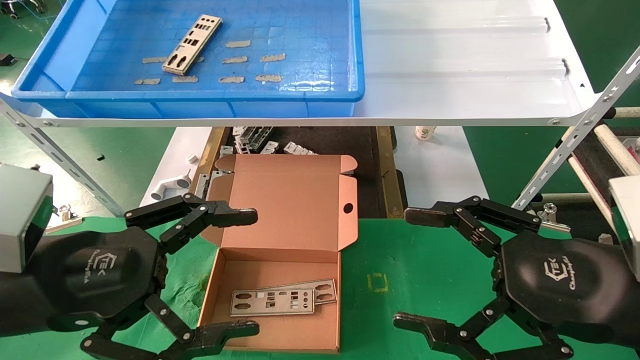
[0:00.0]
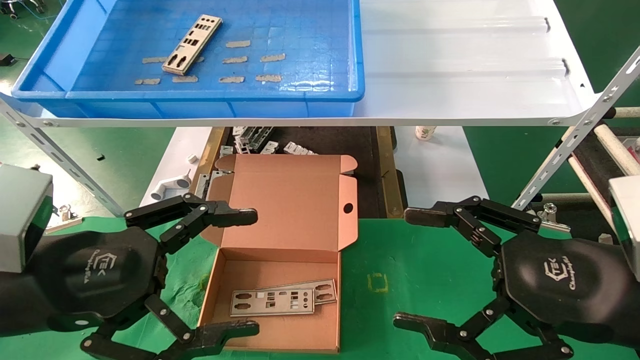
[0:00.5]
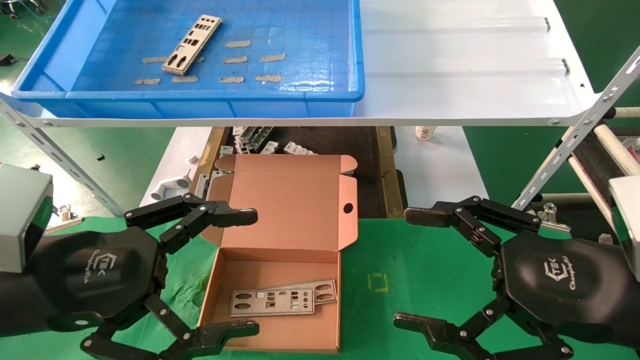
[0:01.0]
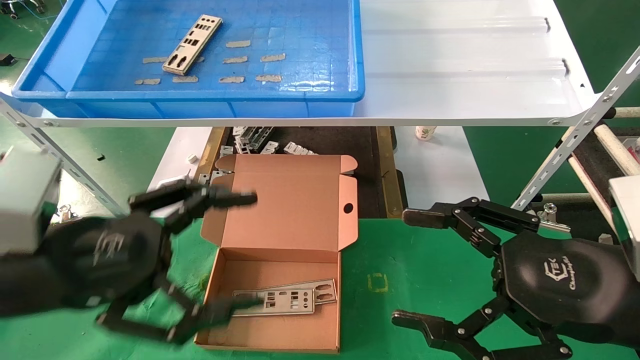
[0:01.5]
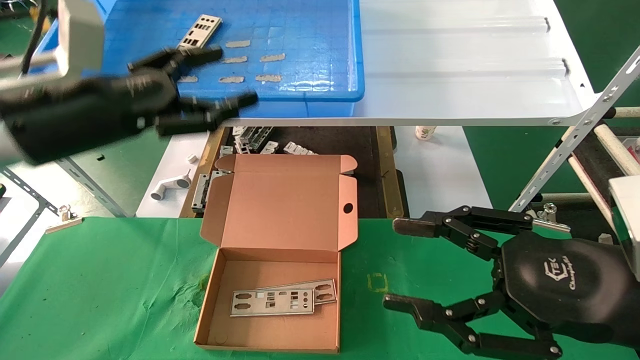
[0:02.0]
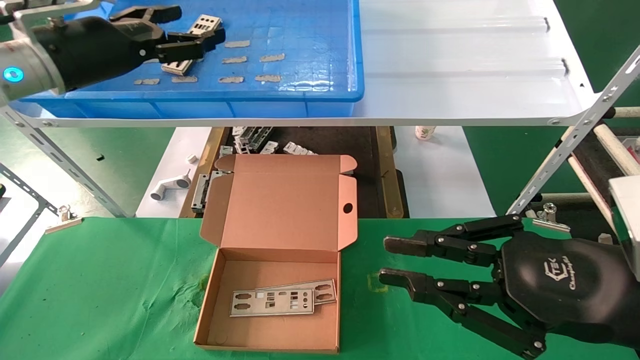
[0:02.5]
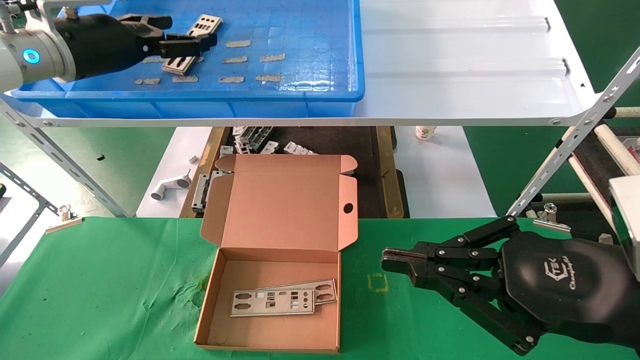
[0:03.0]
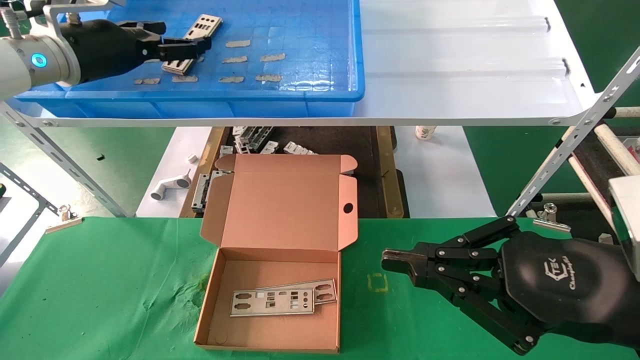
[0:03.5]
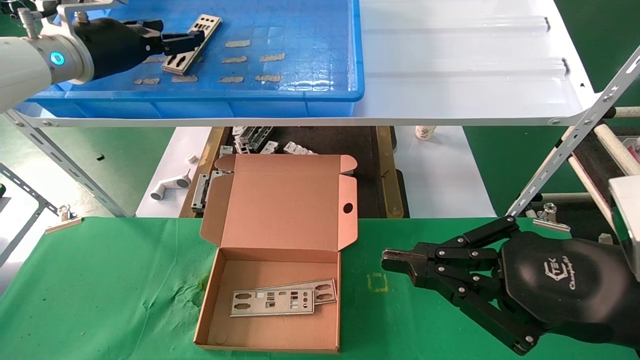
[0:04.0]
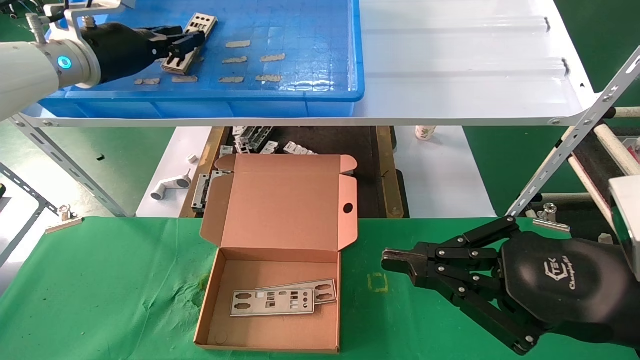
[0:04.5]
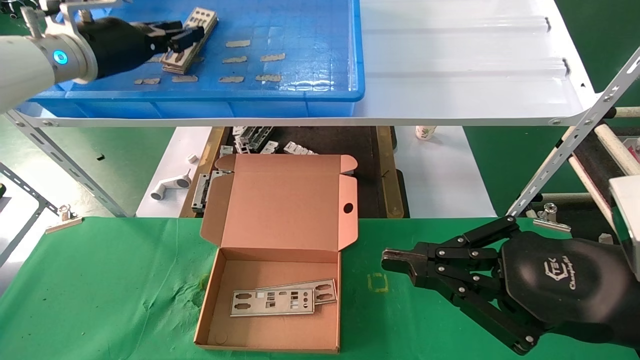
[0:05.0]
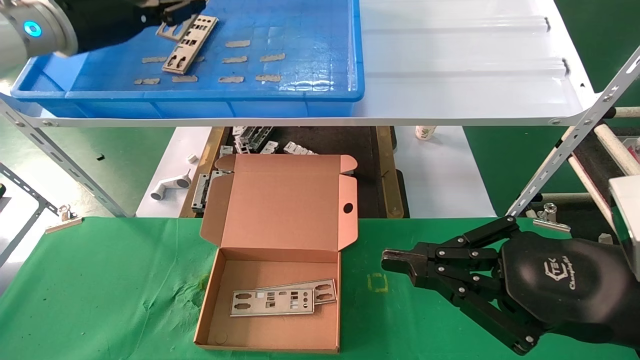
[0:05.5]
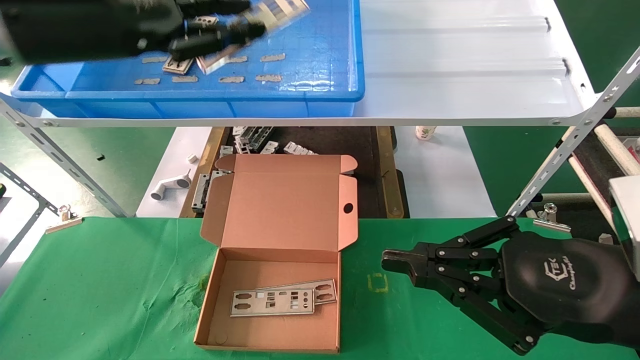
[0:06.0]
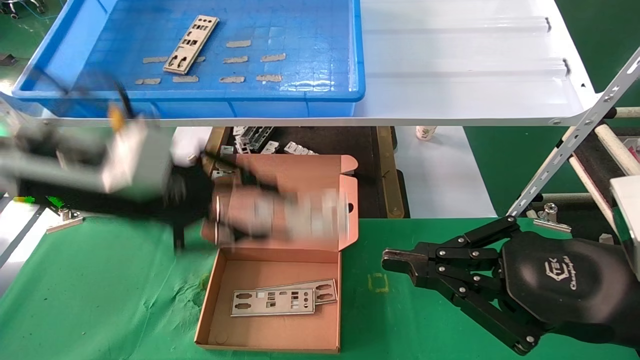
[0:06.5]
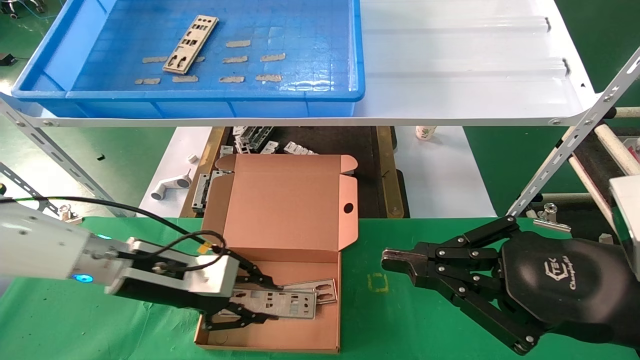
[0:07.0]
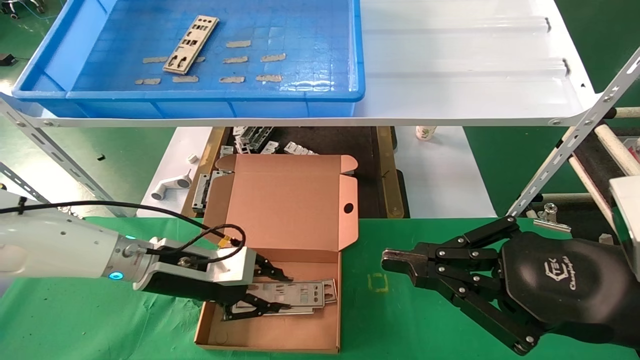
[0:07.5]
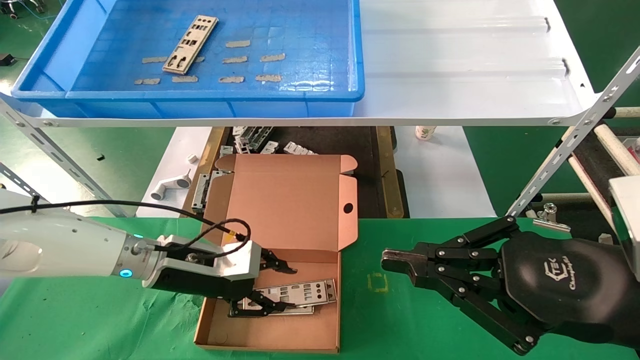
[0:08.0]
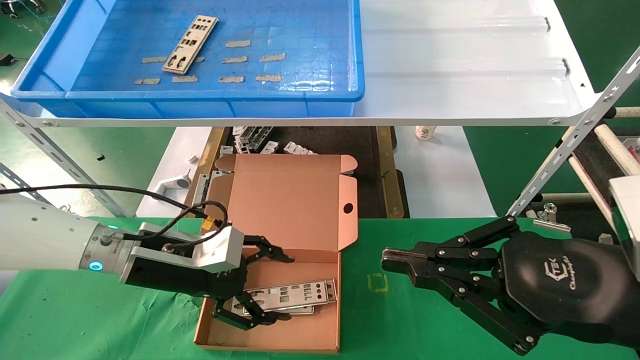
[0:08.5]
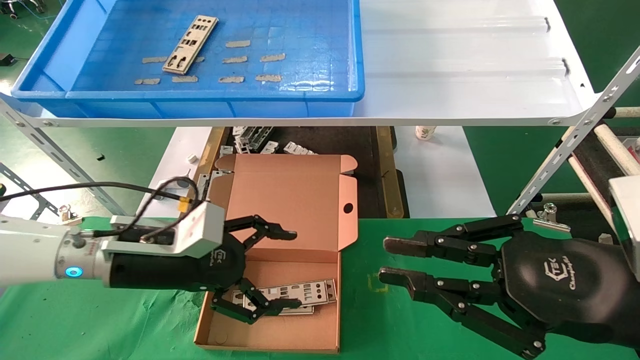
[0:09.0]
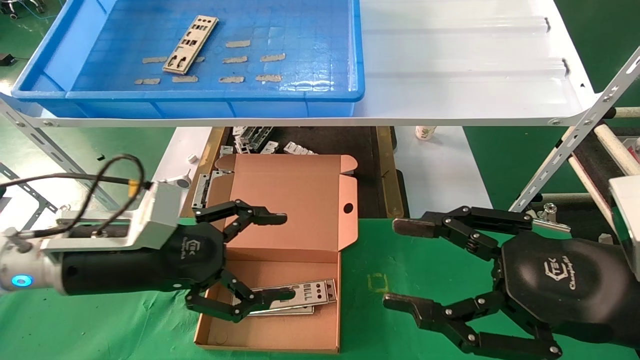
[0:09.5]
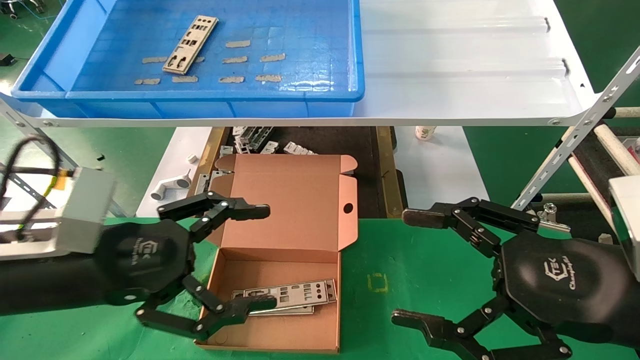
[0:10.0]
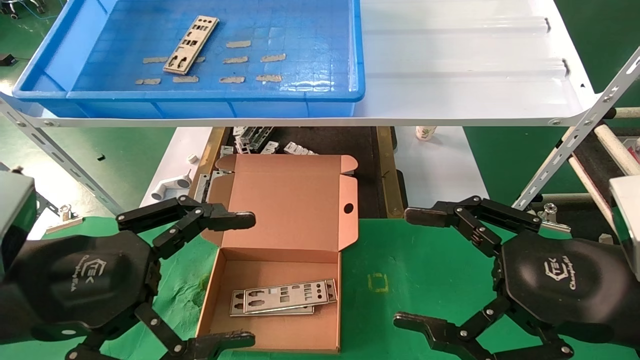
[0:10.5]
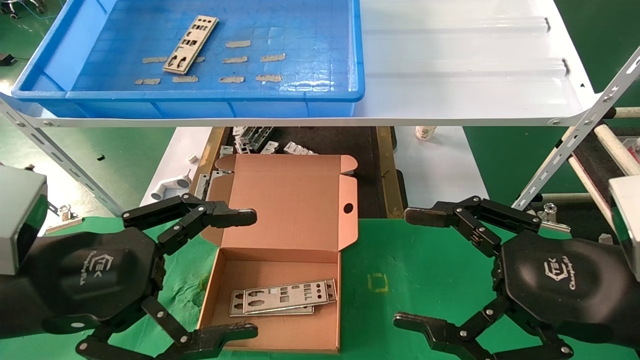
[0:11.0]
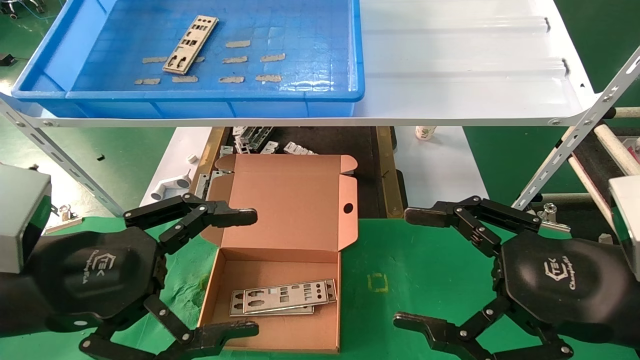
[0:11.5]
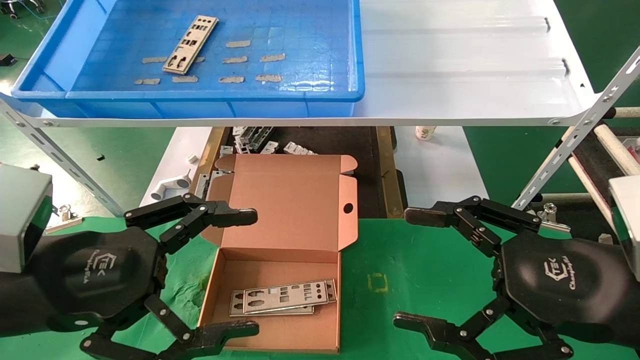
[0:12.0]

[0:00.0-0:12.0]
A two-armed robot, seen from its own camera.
Task of the whole recording: pick up the parts on the tray and put them in the cardboard box.
Step, 0:02.0 to 0:05.0: Pick up the IO bracket from the container box.
Step, 0:05.5 to 0:08.0: Place the IO bracket into the ingredient slot.
0:00.0 to 0:02.0: The left gripper shifts some 15 cm forward and upward.
0:02.0 to 0:04.0: The left gripper shifts some 15 cm forward and upward; the right gripper closes up.
0:04.0 to 0:06.0: The left gripper shifts about 10 cm backward, and closes up.
0:06.0 to 0:08.0: The left gripper goes about 30 cm downward.
0:08.0 to 0:10.0: The right gripper opens up. Meanwhile the left gripper goes about 15 cm backward and upward, and opens.
0:10.0 to 0:12.0: There are only small adjustments of the grippers.

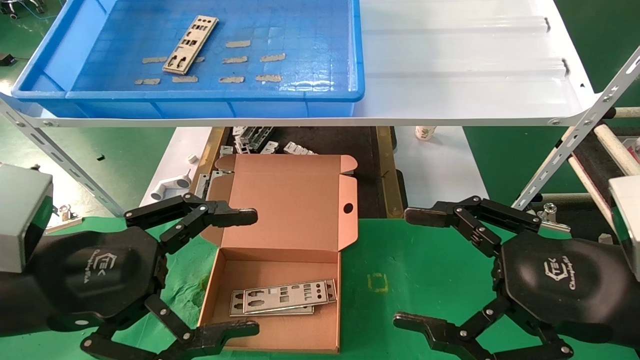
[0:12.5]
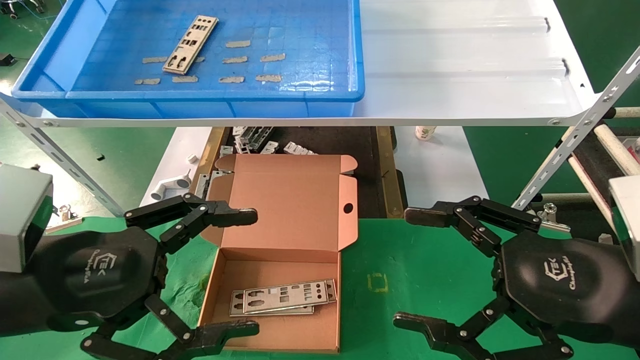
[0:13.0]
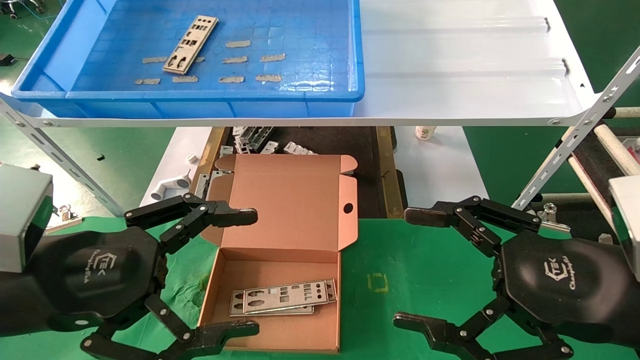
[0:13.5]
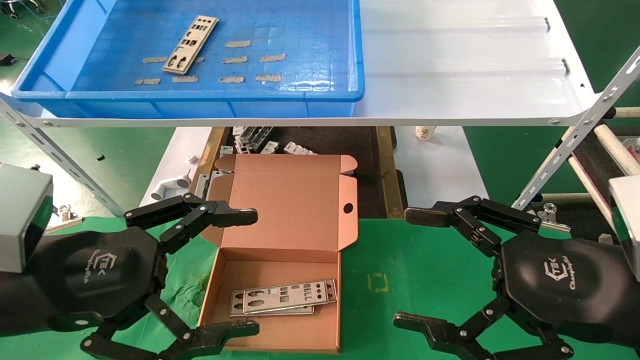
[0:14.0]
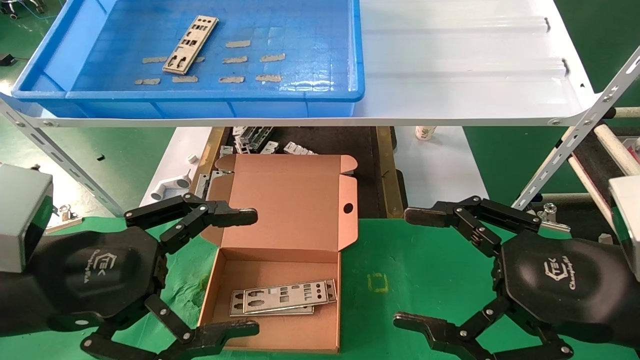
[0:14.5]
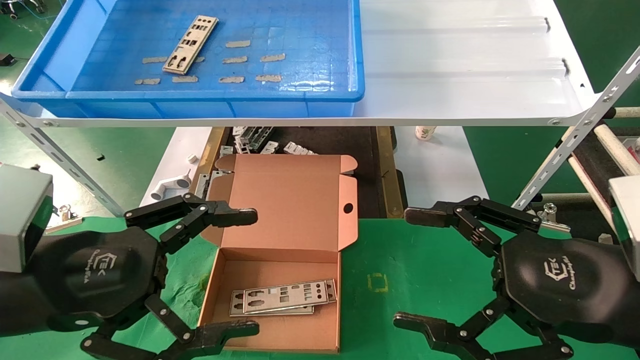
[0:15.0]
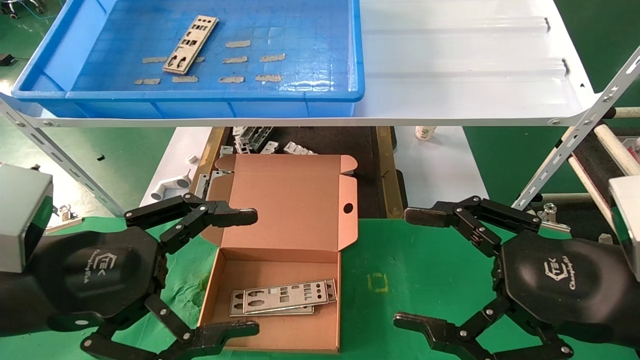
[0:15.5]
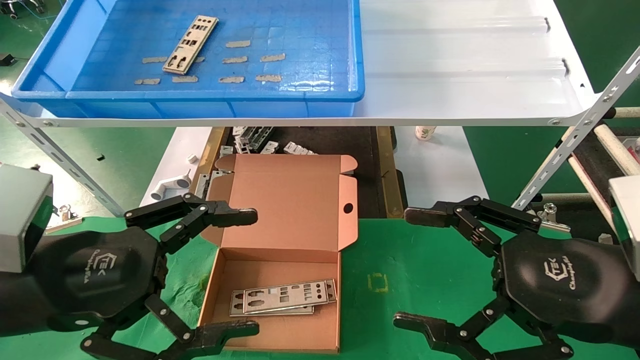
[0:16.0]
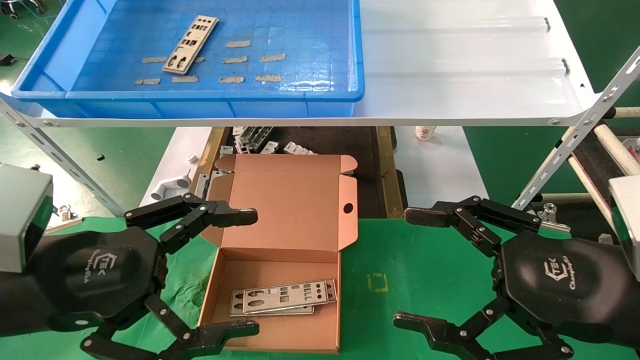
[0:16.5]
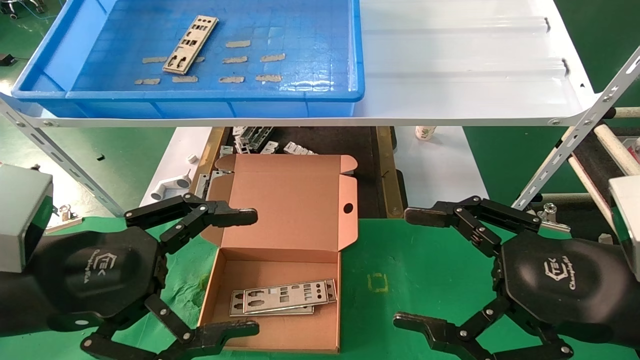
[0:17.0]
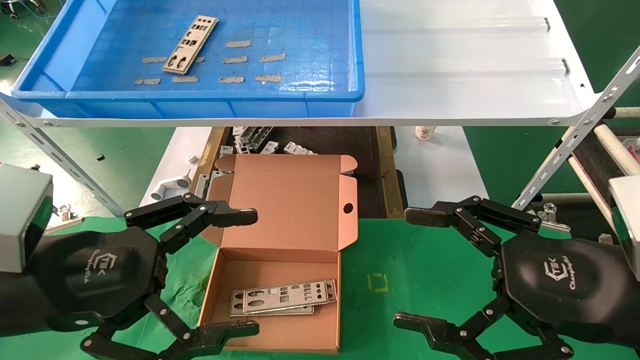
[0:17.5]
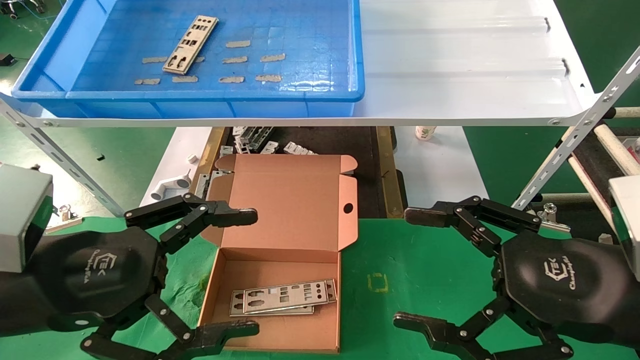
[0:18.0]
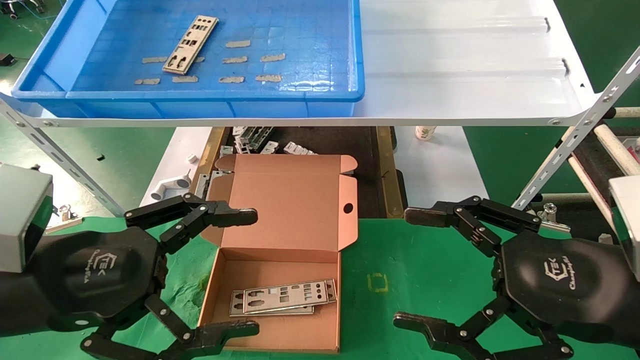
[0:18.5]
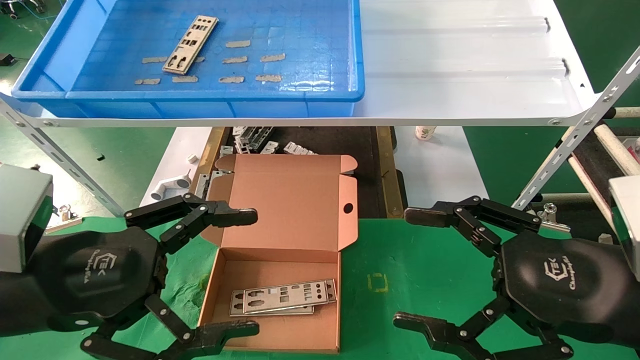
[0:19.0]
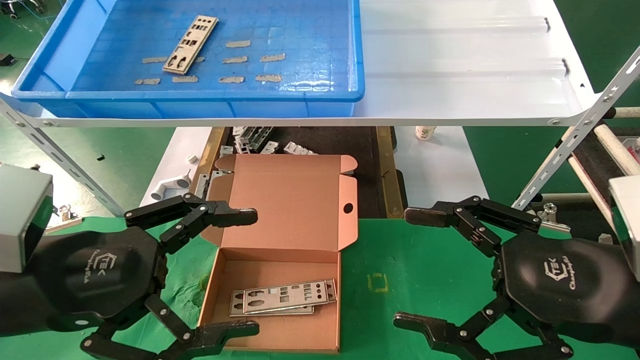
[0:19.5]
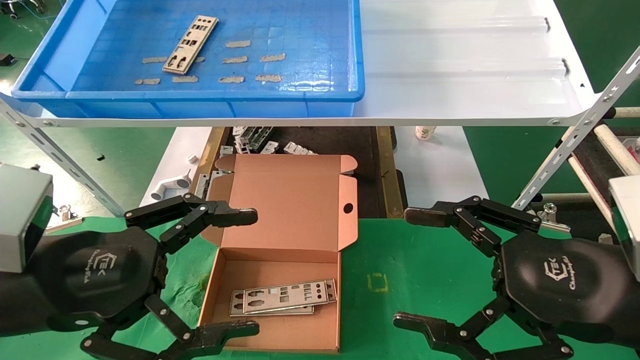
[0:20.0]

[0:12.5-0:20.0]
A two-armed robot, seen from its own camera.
Task of the whole recording: pick up the parts on the tray and put them in the cardboard box.
0:12.5 to 0:20.0: The two grippers keep their place.
